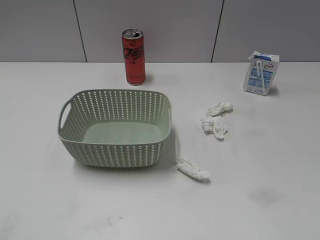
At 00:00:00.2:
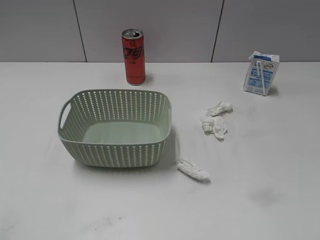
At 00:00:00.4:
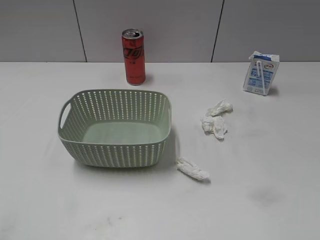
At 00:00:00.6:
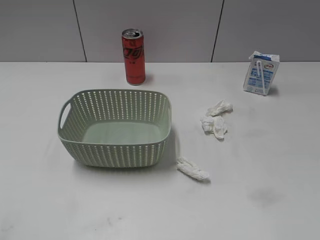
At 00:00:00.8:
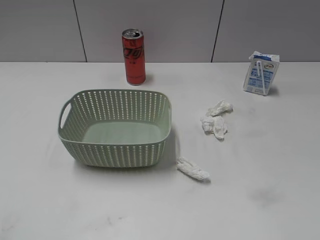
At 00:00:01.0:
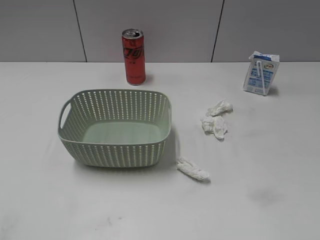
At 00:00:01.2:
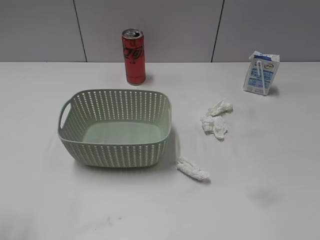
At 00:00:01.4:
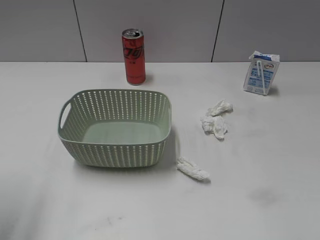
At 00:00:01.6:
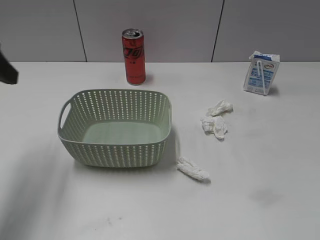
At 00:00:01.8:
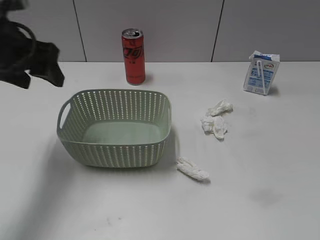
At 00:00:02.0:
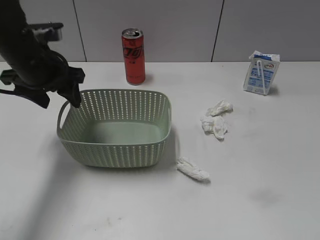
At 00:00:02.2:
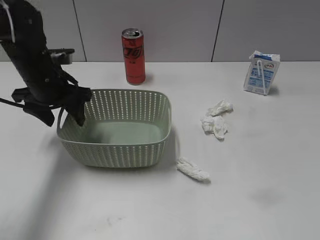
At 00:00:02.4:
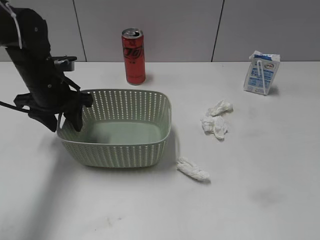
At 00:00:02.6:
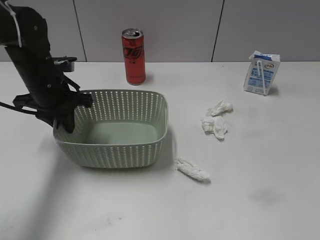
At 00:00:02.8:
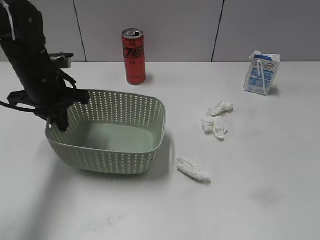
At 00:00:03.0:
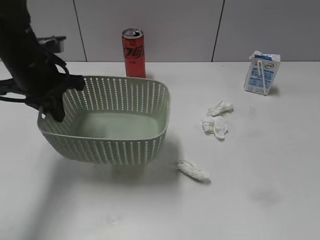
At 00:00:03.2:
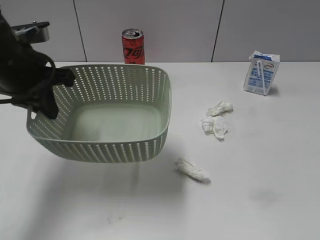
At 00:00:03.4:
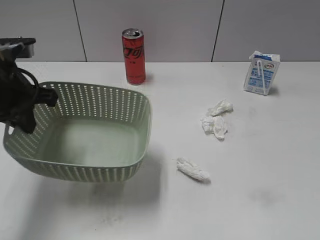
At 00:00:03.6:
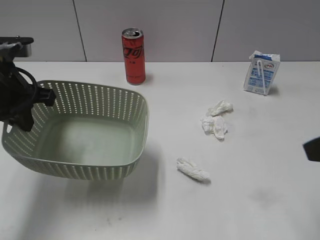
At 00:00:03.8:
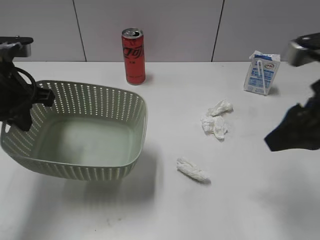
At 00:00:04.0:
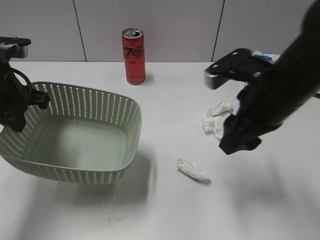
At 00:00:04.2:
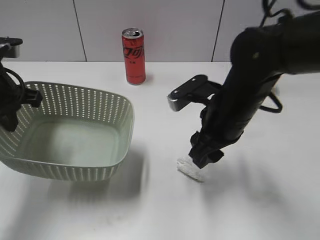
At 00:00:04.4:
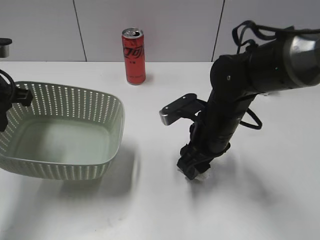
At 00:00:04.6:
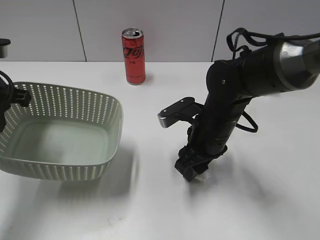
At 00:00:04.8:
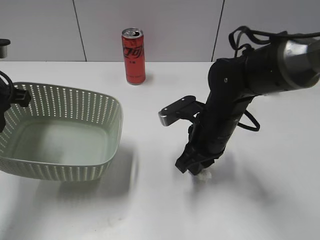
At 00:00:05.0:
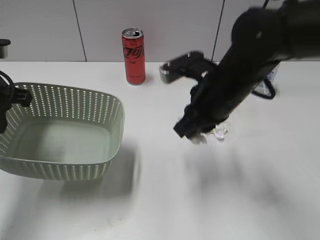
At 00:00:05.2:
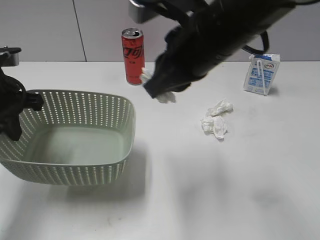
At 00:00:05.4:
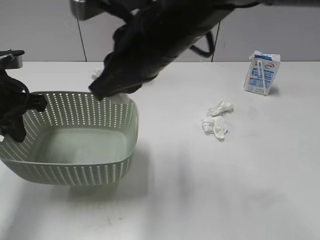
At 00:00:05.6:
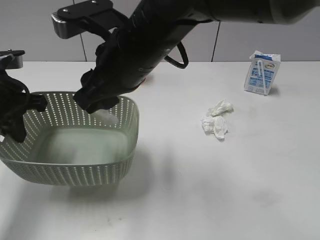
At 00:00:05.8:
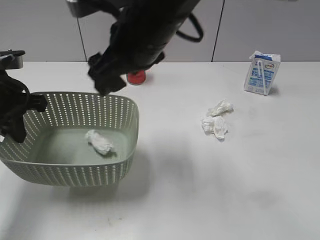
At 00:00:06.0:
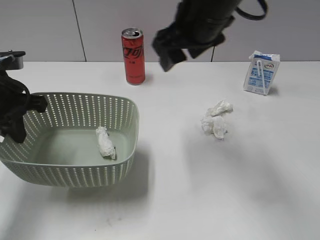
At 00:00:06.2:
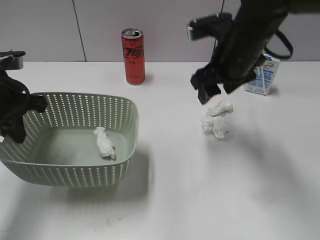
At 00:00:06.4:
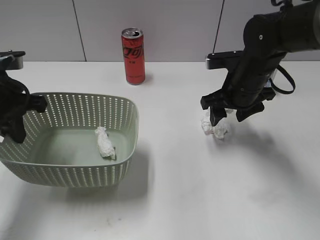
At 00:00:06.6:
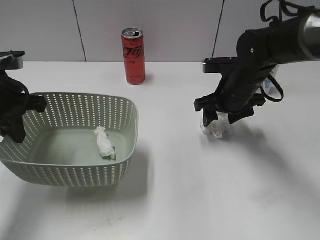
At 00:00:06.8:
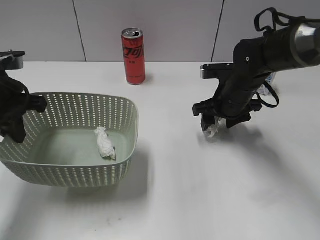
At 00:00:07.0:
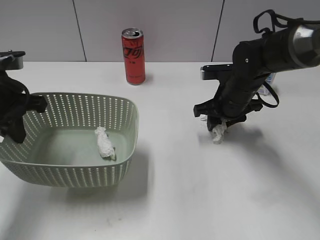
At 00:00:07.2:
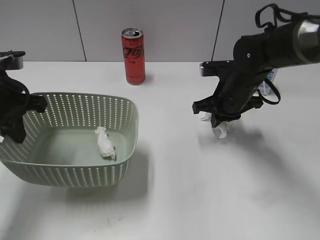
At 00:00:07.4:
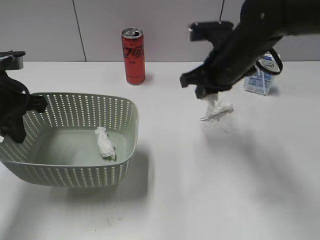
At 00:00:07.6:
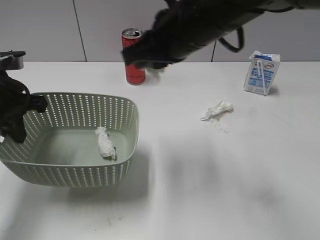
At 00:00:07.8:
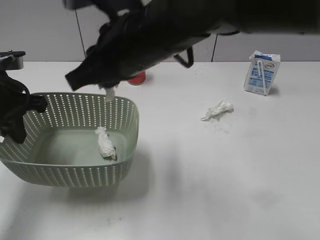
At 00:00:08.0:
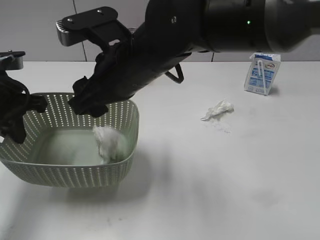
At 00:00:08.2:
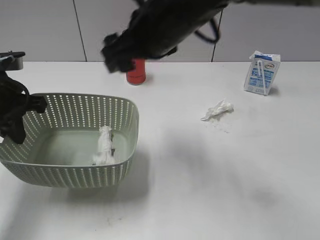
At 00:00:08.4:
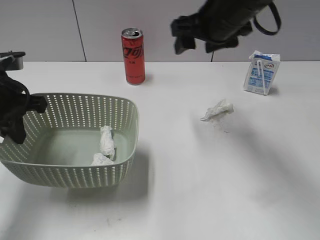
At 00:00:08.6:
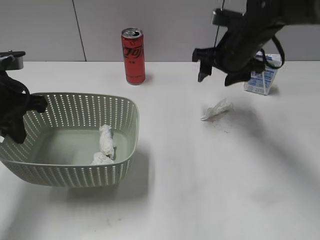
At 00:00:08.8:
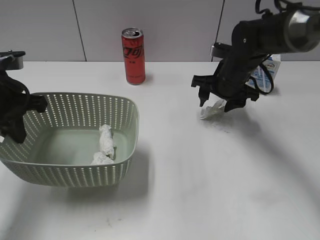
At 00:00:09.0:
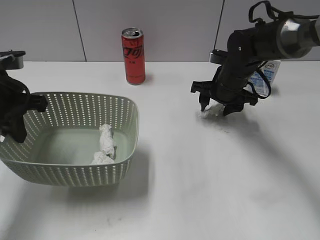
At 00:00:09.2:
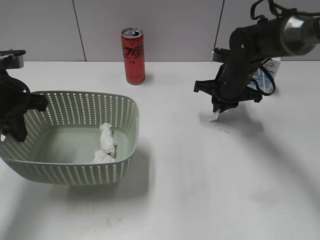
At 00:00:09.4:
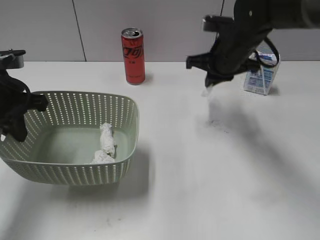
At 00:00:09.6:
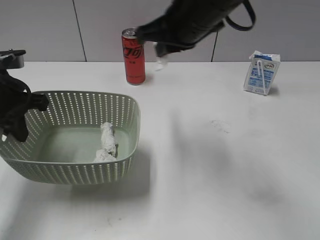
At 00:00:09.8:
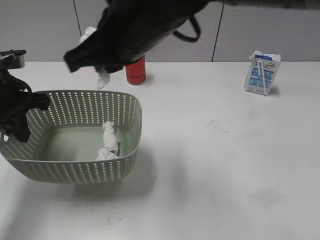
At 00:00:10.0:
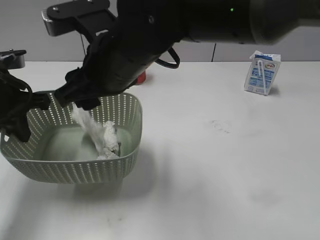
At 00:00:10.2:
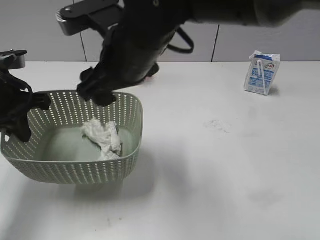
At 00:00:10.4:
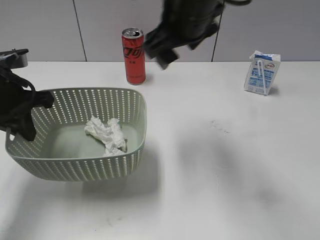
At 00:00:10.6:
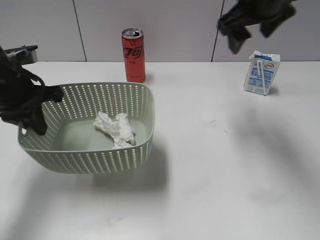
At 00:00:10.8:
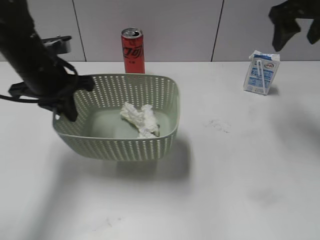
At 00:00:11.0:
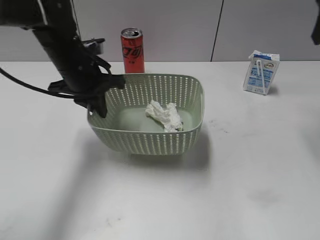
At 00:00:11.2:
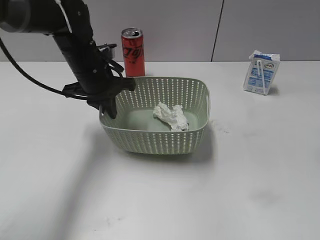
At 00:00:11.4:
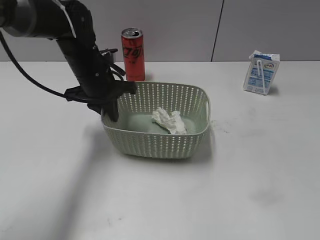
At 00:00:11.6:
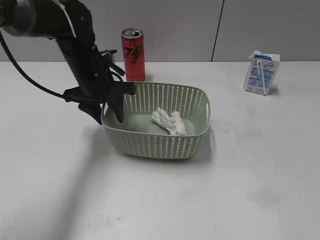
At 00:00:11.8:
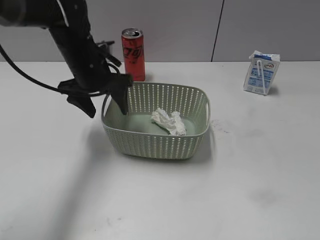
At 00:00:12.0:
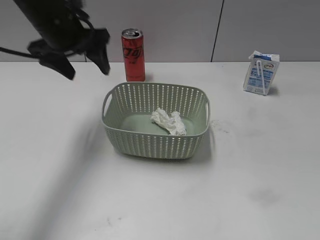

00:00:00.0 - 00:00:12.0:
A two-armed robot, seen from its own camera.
Step, 00:00:01.4 - 00:00:02.8: Grasp the basket with left gripper.
Step, 00:00:03.0 - 00:00:03.4: Lift the basket with left gripper.
Step, 00:00:03.6 - 00:00:05.2: Grasp the waste paper with right gripper.
Step, 00:00:05.4 - 00:00:05.8: Place the waste paper in the basket with right gripper.
Step, 00:00:06.0 - 00:00:07.2: Grasp the waste paper with right gripper.
Step, 00:00:07.4 - 00:00:08.2: Place the waste paper in the basket with right gripper.
Step, 00:00:08.4 - 00:00:09.2: Grasp the waste paper with right gripper.
Step, 00:00:09.4 - 00:00:10.6: Place the waste paper in the basket with right gripper.
Step, 00:00:10.8 - 00:00:11.8: Place the basket on the table with left gripper.
00:00:01.6 - 00:00:03.0: The left gripper goes about 15 cm forward, downward and to the right, and closes up.
00:00:03.0 - 00:00:04.4: The left gripper moves to the left and backward, some 10 cm. Meanwhile the right gripper goes approximately 40 cm forward, to the left and downward.
00:00:04.4 - 00:00:06.0: The right gripper is displaced upward by roughly 15 cm, and closes, then opens again.
00:00:06.0 - 00:00:07.6: The right gripper goes downward and returns, some 20 cm each way, and closes up.
00:00:07.6 - 00:00:09.0: The right gripper heads downward, forward and to the right, covering approximately 25 cm, and opens its fingers.
00:00:09.0 - 00:00:10.4: The right gripper shifts approximately 25 cm upward, to the left and backward, and closes, then reopens.
00:00:10.4 - 00:00:12.0: The left gripper is displaced forward and to the right by about 10 cm, and opens up. The right gripper goes about 40 cm to the right and backward.

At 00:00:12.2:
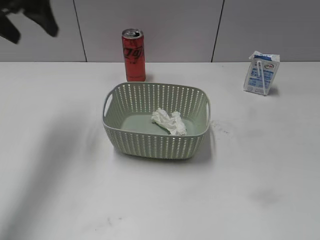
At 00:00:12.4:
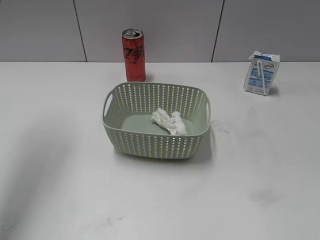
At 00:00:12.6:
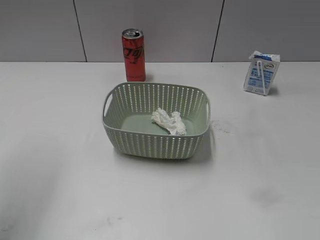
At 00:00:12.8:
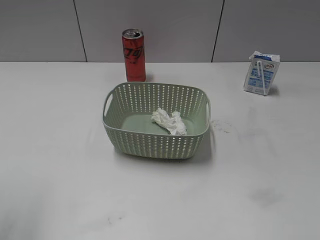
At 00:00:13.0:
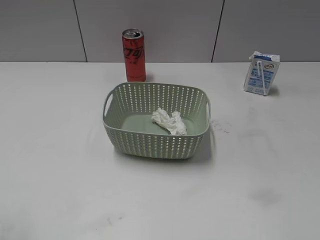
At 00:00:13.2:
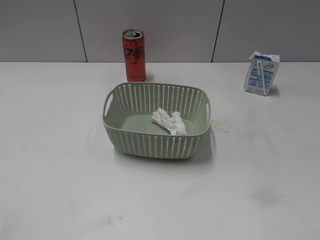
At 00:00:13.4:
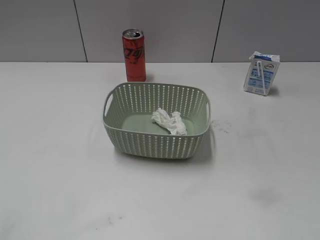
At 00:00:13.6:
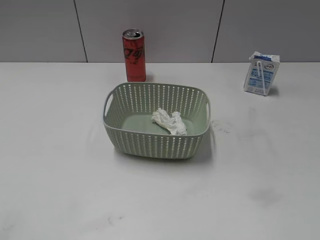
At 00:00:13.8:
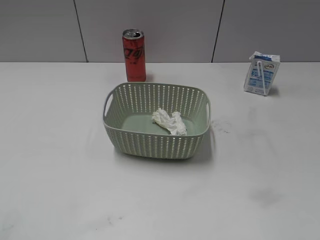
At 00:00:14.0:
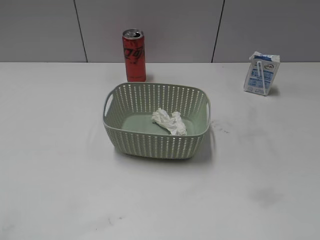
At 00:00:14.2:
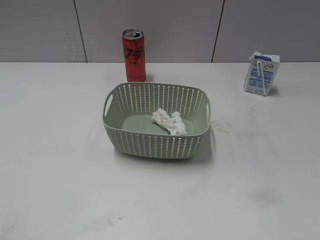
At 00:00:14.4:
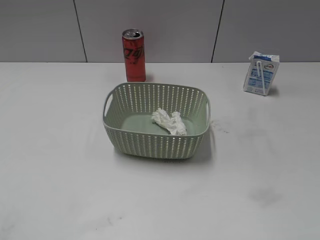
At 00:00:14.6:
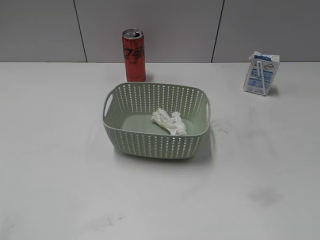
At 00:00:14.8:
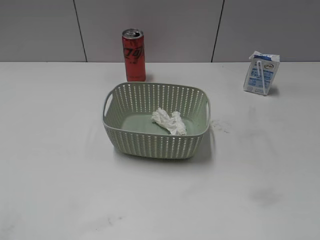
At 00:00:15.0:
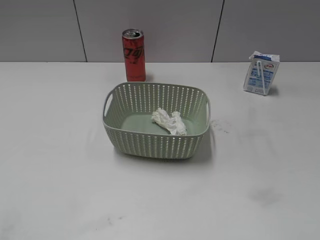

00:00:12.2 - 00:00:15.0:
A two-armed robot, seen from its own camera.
00:00:12.2 - 00:00:13.6: The left gripper heads backward, covering about 40 cm.
00:00:13.6 - 00:00:15.0: Both grippers stay put.
